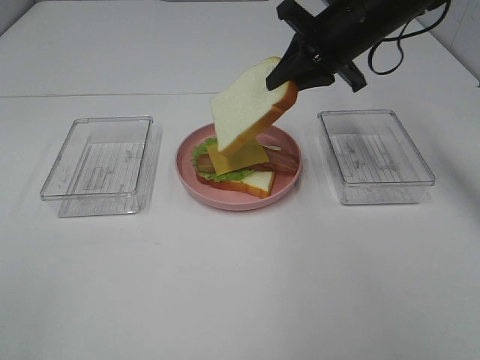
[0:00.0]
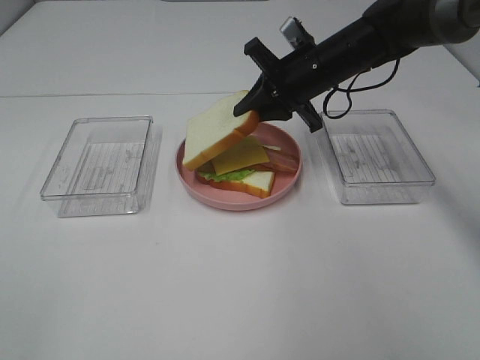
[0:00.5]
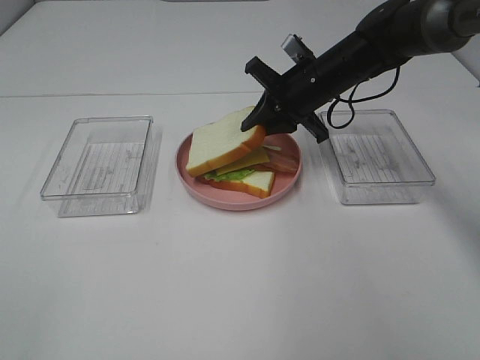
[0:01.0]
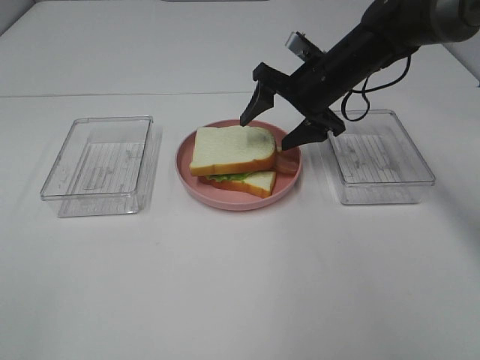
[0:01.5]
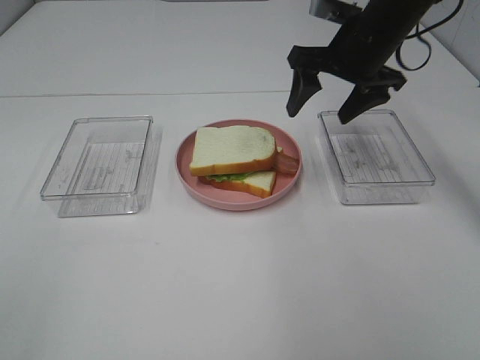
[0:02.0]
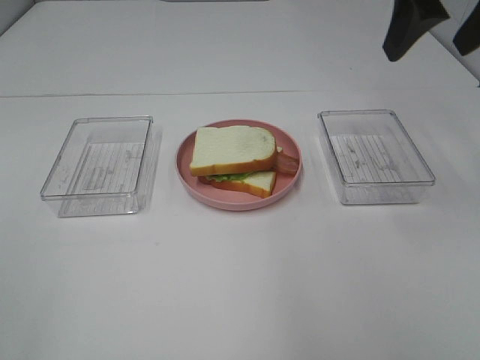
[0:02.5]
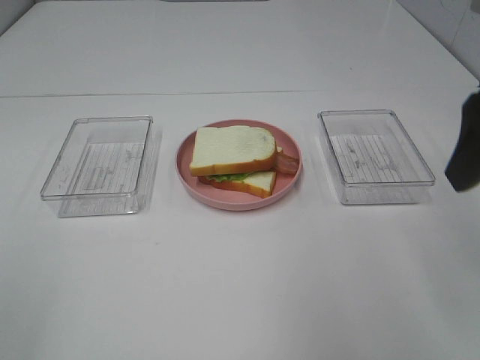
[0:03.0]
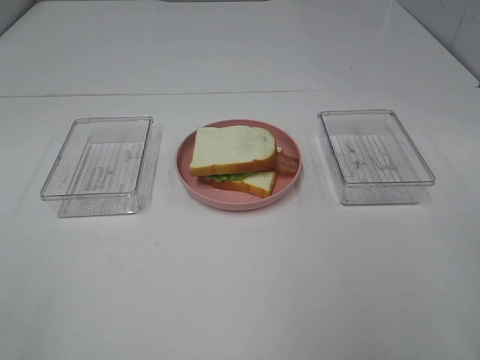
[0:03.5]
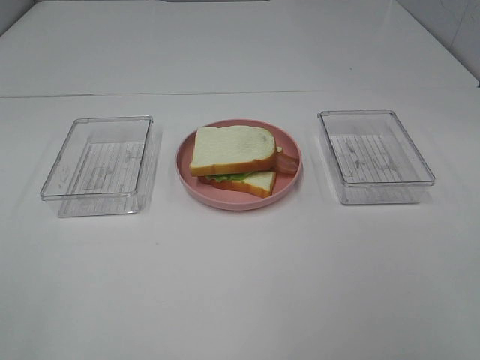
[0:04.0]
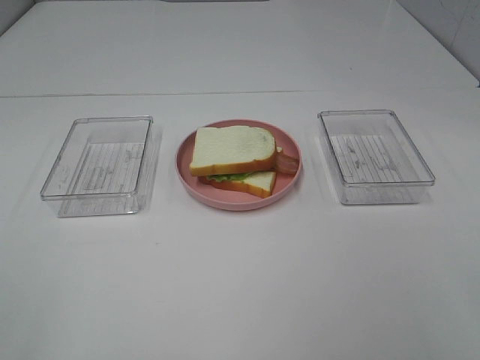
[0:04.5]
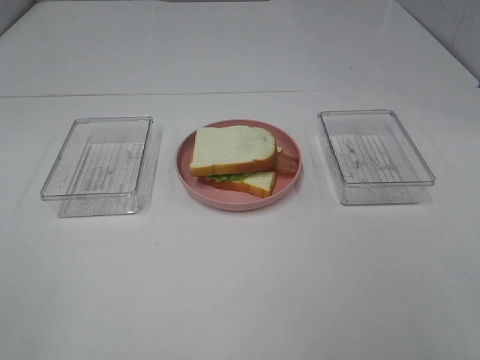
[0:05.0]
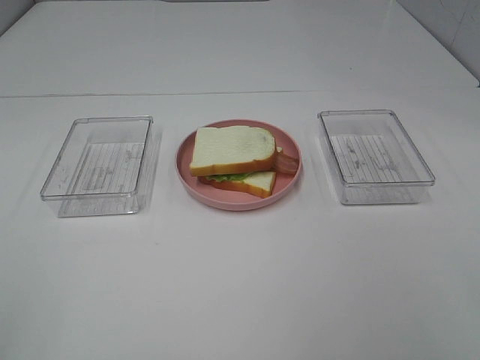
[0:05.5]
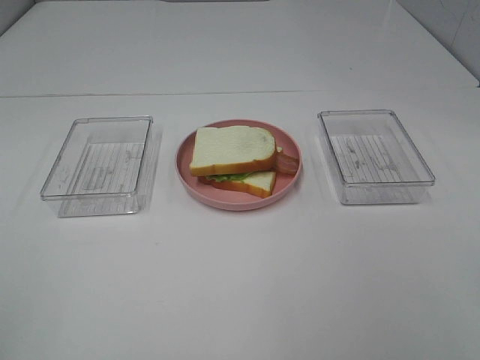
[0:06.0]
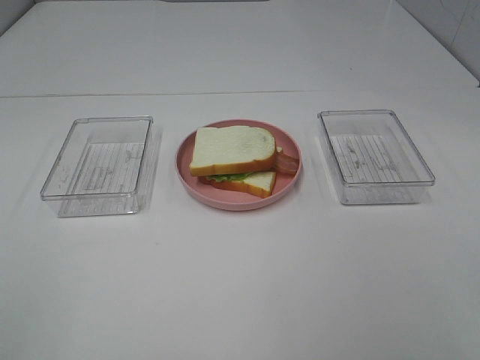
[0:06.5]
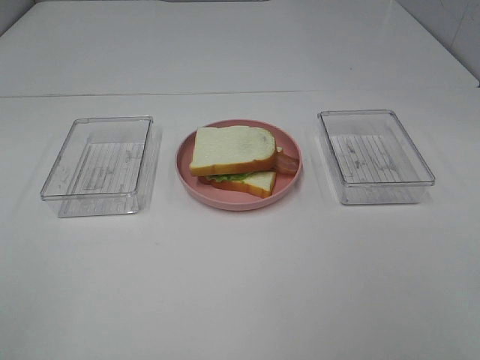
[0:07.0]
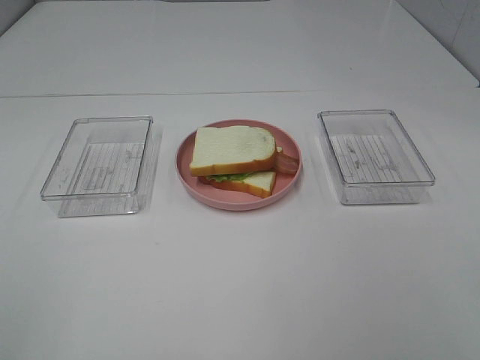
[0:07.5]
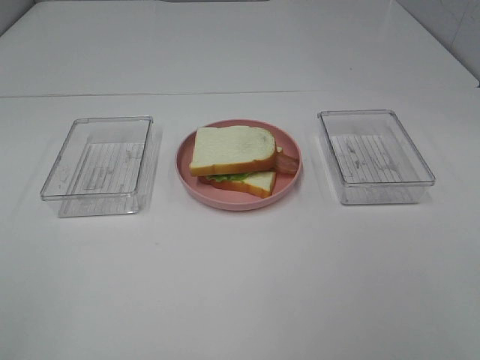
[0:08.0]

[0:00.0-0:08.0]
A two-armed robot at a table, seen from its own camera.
Task of the whole recording: Make sandwiches.
Step, 0:00.0 to 0:01.5: Right hand:place the bread slice on the cheese slice.
0:00.0 to 0:02.0: The right gripper travels downward and back again, approximately 10 cm each way, and opens up.
0:02.0 to 0:04.0: The right gripper goes approximately 35 cm backward.
